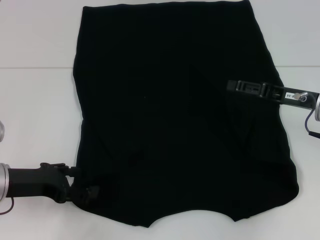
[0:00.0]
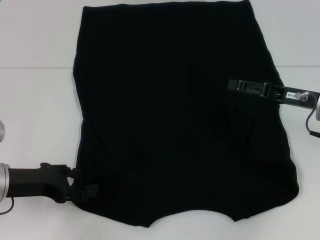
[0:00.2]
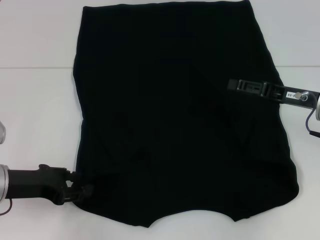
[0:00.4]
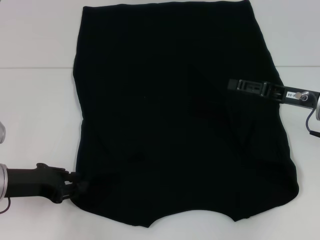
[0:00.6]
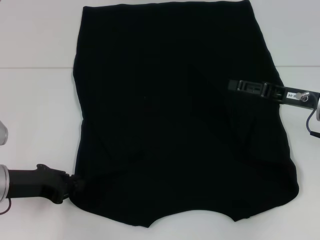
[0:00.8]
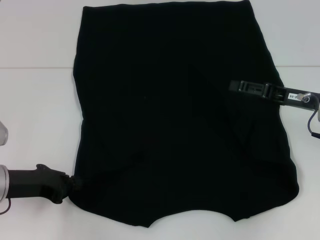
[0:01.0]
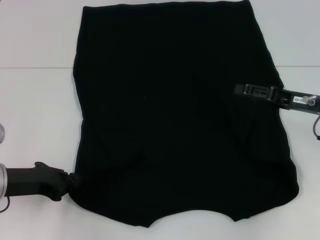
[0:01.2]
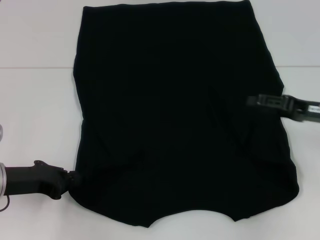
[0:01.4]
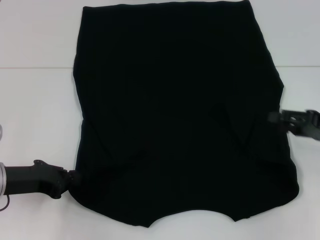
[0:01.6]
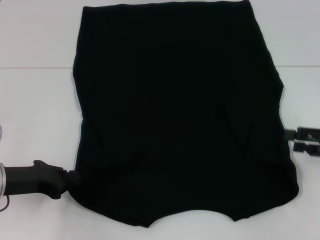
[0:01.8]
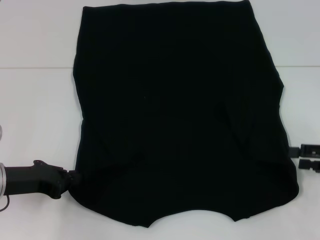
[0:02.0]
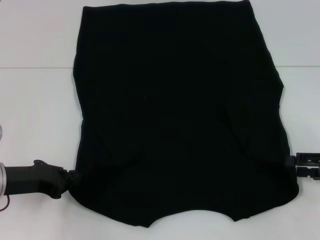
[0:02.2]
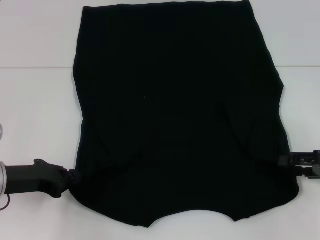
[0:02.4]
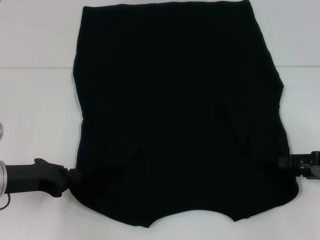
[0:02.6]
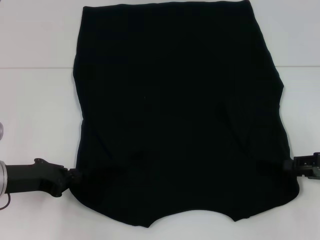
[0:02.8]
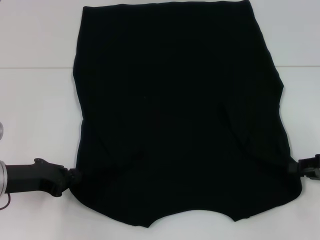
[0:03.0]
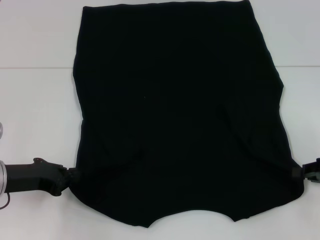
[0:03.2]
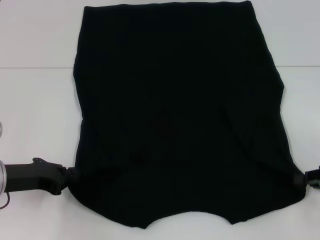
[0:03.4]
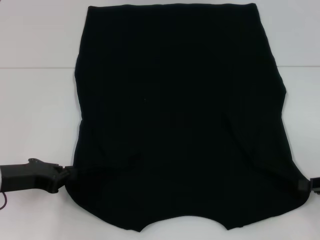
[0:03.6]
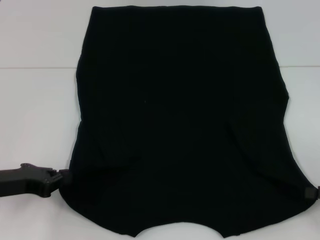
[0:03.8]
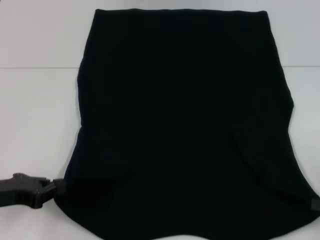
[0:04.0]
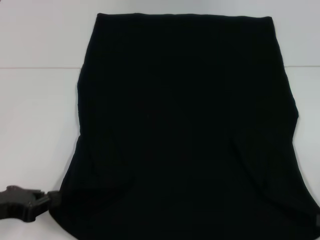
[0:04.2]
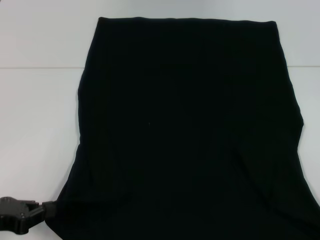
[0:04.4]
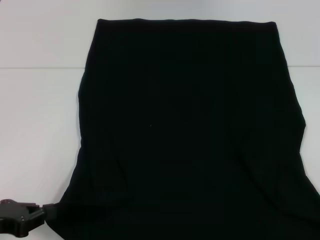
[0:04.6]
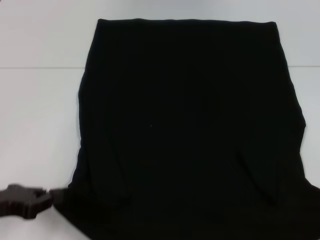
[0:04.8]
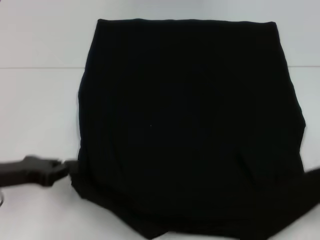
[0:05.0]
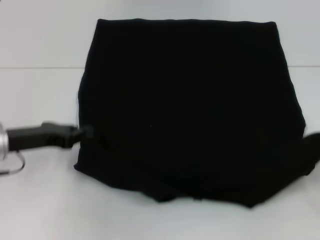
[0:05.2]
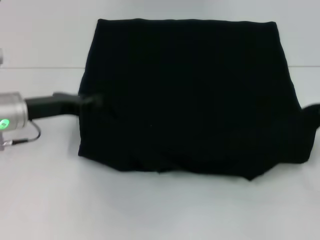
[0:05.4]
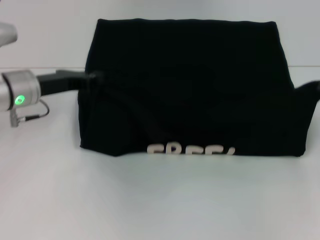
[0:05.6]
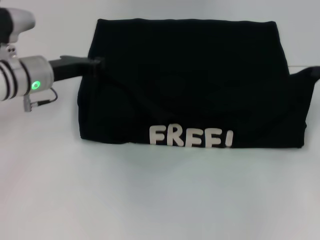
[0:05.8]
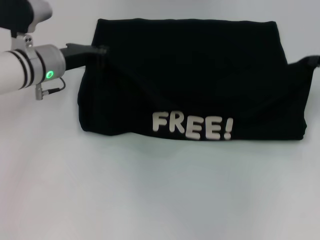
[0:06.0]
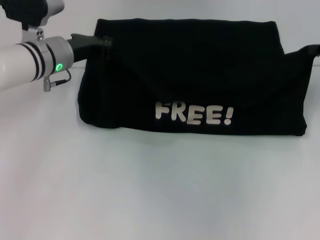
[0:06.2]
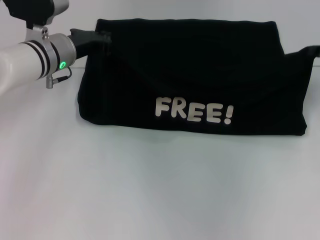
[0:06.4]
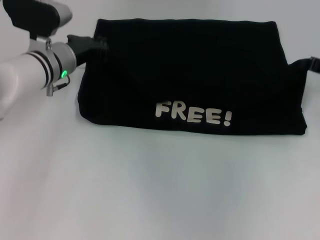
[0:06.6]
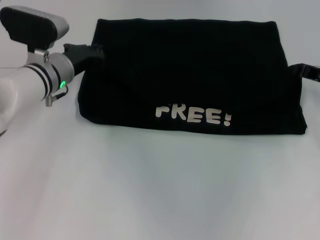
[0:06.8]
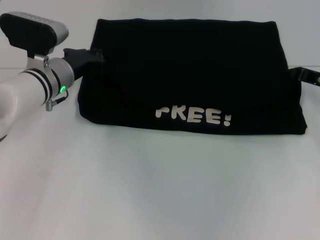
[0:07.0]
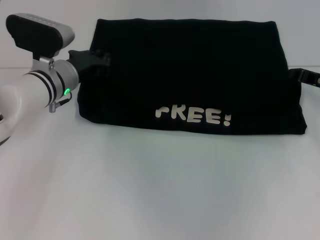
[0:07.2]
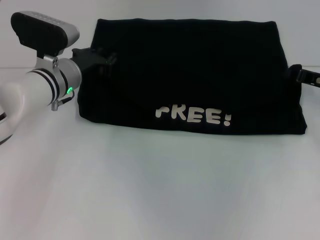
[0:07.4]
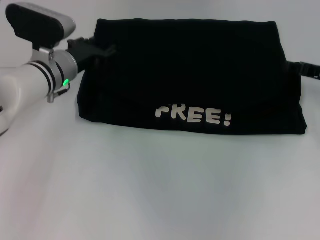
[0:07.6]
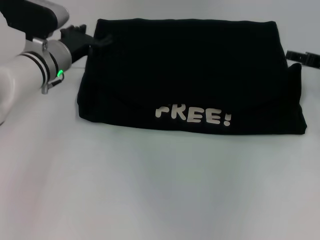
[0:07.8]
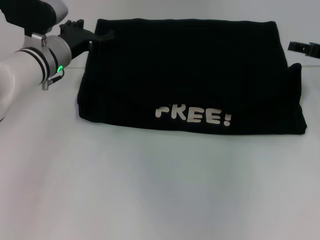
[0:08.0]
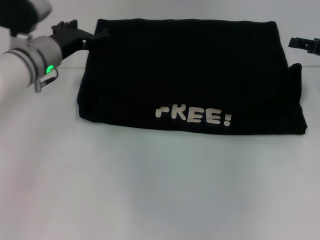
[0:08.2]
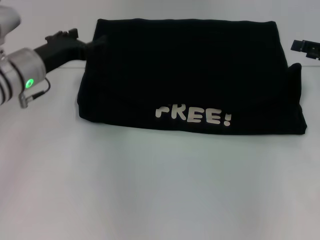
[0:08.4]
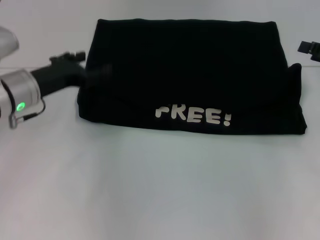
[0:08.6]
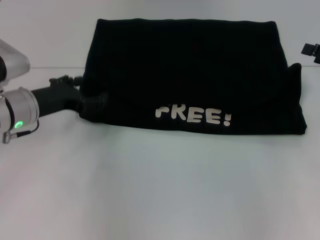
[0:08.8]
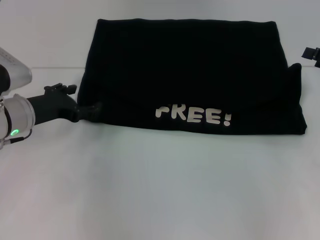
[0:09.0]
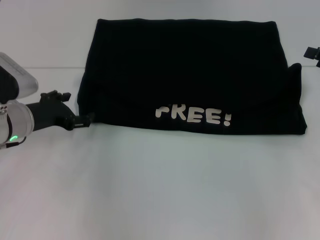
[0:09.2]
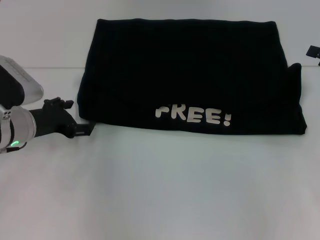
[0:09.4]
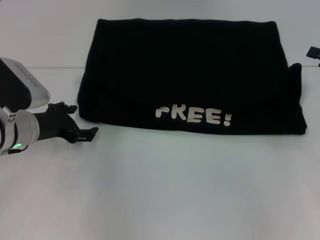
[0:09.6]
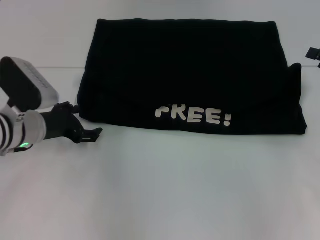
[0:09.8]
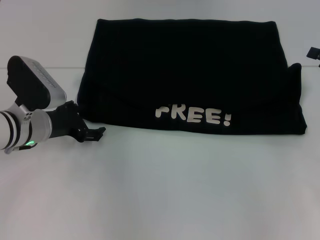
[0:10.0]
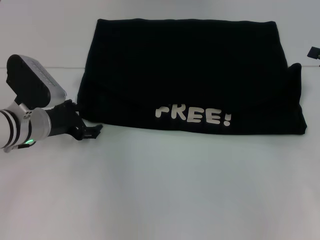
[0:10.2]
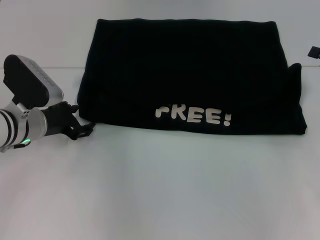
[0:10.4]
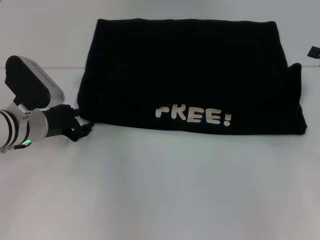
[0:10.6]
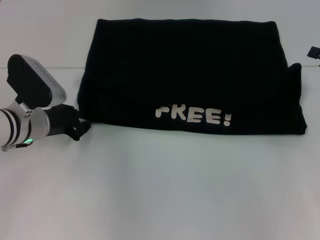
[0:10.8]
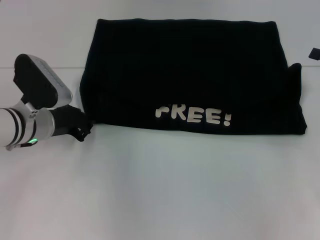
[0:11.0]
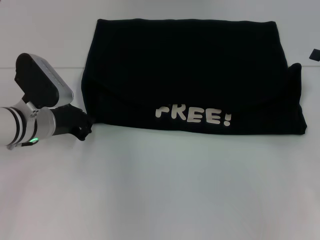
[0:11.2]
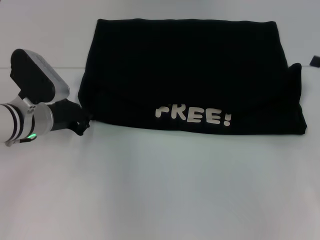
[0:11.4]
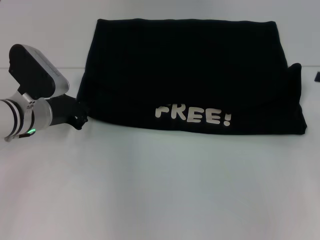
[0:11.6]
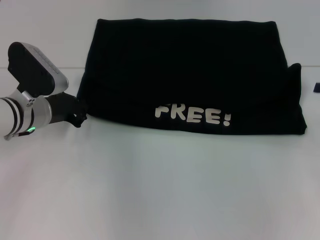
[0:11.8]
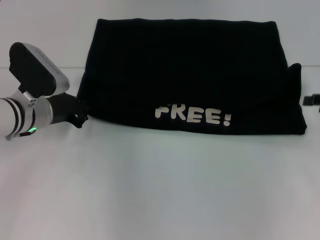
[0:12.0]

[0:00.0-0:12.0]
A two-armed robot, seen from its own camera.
Step, 0:02.2 to 0:03.2: Grab the bottom right corner with your right hand.
Step, 0:03.4 to 0:07.2: Fold the clothes with your left hand.
Step, 0:03.4 to 0:07.2: Fold the clothes with your right hand.
0:00.0 to 0:01.6: The right gripper heads to the right, covering roughly 5 cm. Meanwhile the left gripper closes up.
0:01.6 to 0:03.0: The right gripper shifts by approximately 5 cm.
0:03.0 to 0:04.4: The right gripper is displaced backward by approximately 10 cm, and closes. The left gripper goes some 5 cm backward.
0:04.4 to 0:06.0: The right gripper shifts some 20 cm forward. Meanwhile the left gripper heads forward and to the right, covering about 25 cm.
0:06.0 to 0:07.6: The left gripper opens.
0:07.6 to 0:09.0: The left gripper goes roughly 10 cm backward and to the left, and opens up. Meanwhile the right gripper shifts by some 10 cm, and opens up.
0:09.0 to 0:10.4: The grippers stay close to where they were, moving slightly.
0:10.4 to 0:12.0: The left gripper closes up.

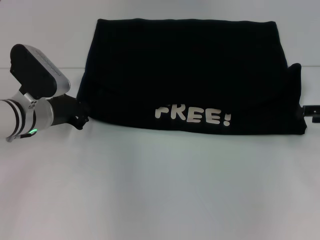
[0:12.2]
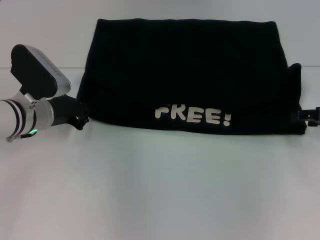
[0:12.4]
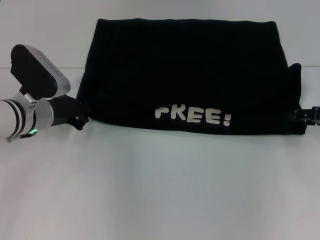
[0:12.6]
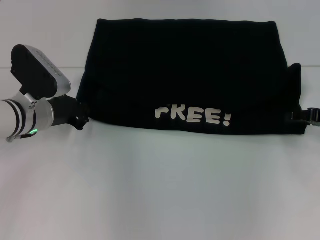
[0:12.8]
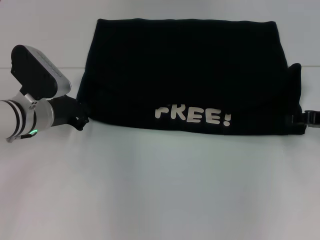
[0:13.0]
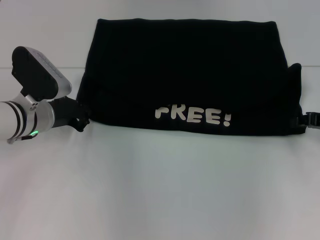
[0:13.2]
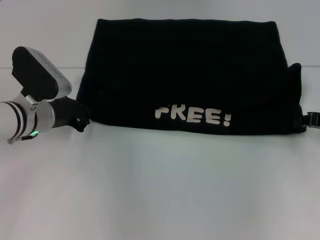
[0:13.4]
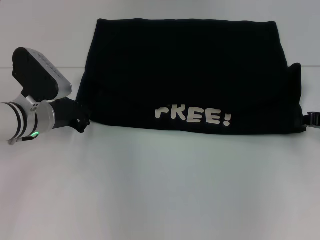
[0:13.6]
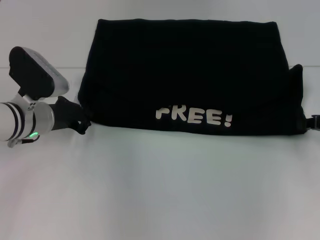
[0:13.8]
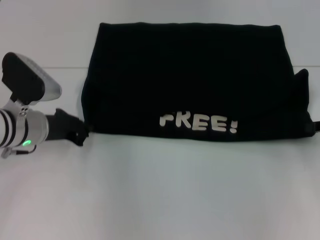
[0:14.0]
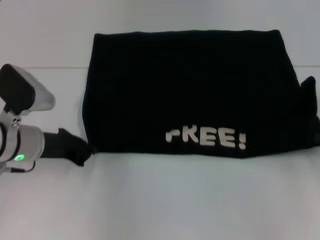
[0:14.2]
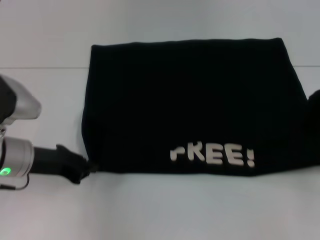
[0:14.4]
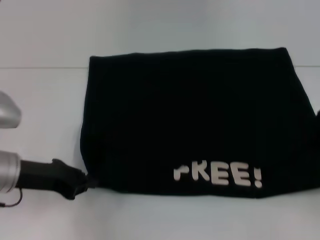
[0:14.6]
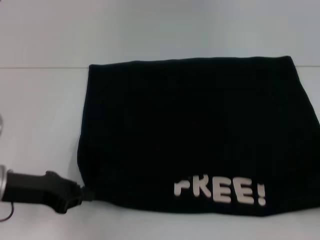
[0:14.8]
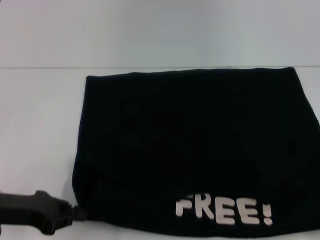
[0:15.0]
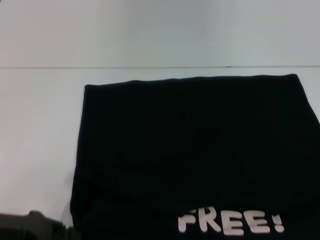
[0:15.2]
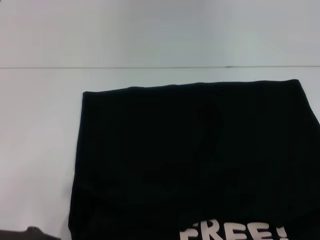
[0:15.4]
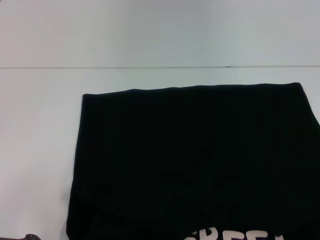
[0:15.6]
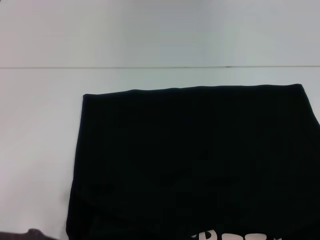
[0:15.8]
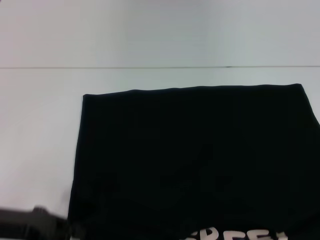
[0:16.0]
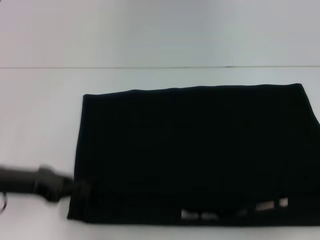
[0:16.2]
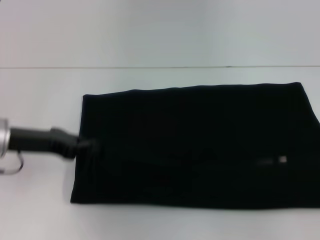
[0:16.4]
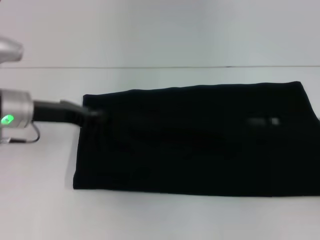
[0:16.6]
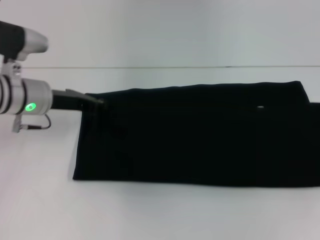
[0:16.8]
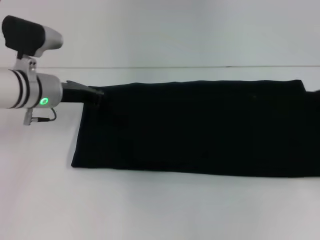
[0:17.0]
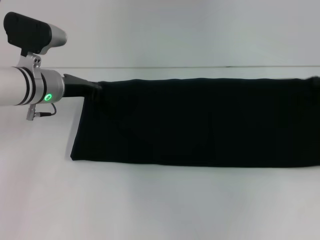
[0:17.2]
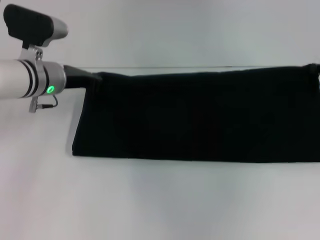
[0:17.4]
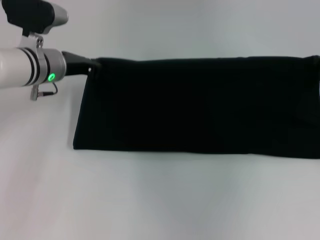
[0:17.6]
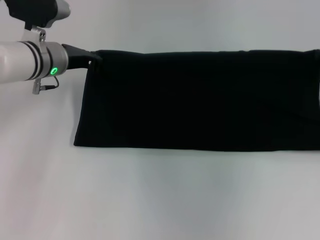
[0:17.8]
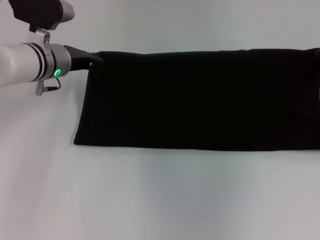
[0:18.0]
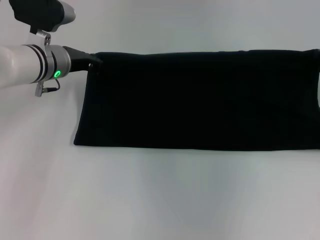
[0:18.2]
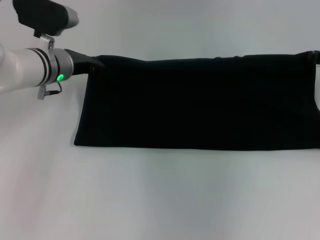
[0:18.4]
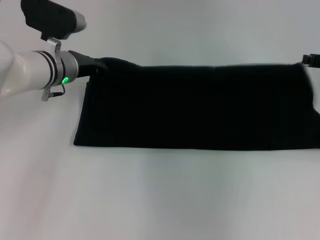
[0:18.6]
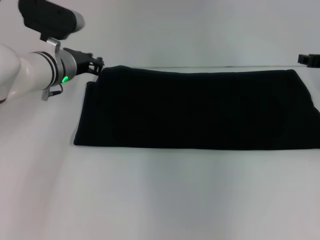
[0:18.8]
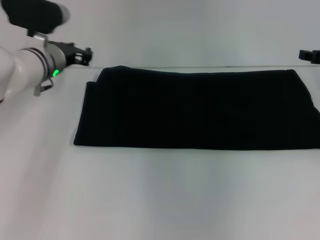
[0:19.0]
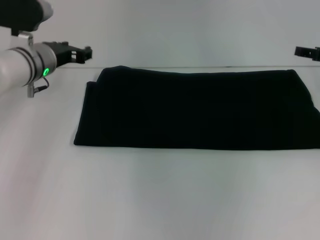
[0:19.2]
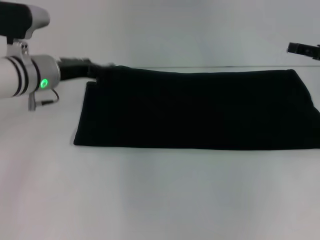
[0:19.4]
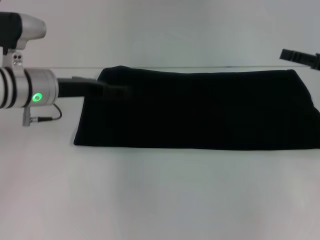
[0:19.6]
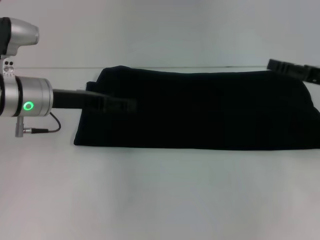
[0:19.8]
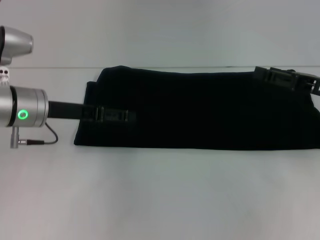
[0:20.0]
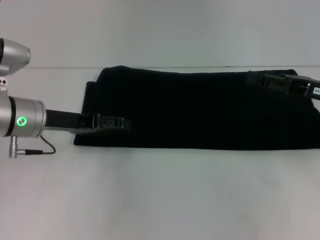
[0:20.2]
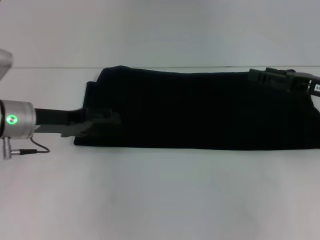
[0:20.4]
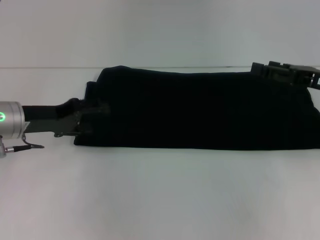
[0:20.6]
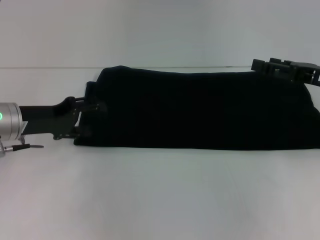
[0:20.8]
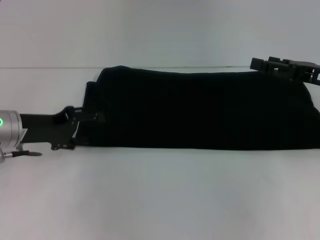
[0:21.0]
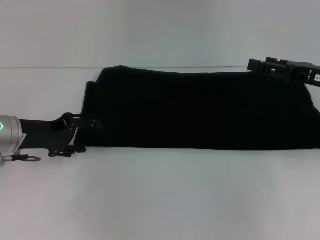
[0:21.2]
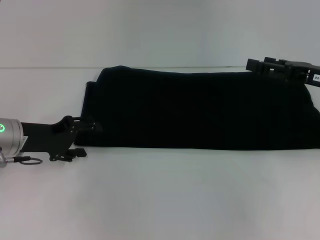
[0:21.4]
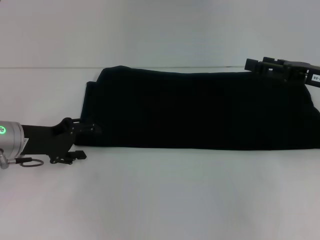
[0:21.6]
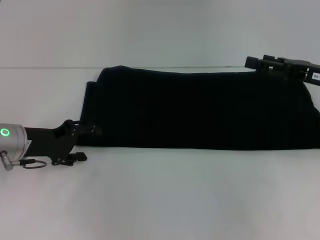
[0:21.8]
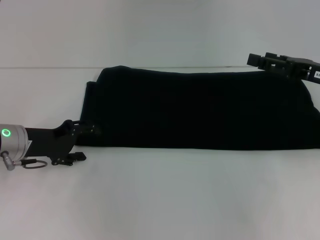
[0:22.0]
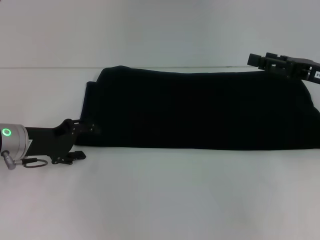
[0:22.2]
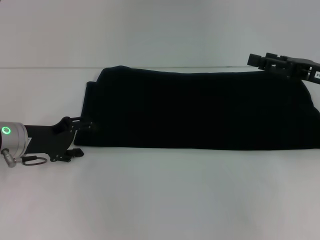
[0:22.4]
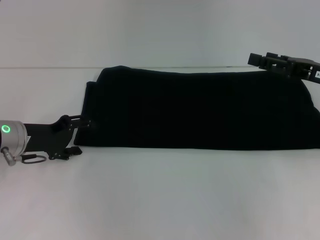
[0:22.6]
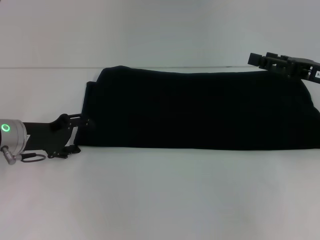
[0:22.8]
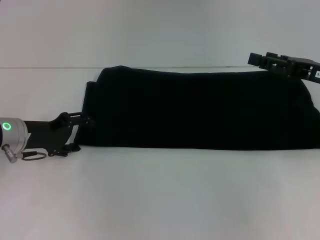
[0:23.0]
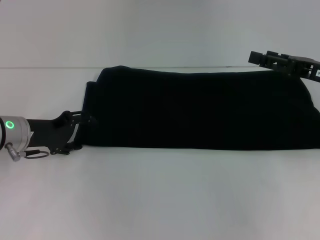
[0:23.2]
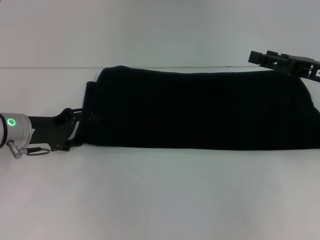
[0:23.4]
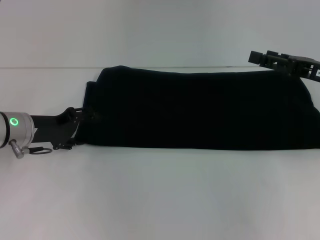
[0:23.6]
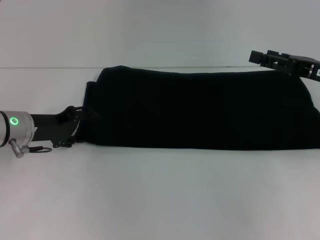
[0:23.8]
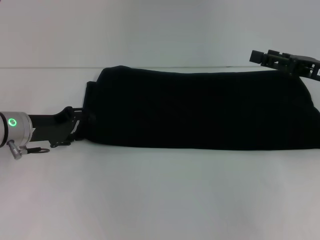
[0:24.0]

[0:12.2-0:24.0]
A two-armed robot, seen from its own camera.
Step, 0:12.2 to 0:15.8: Pull the clothes with your left hand.
Step, 0:12.2 to 0:15.8: Pull the clothes with your right hand.
Step, 0:16.0 to 0:19.4: Fold the clothes with your right hand.
0:13.6 to 0:15.2: The right gripper is displaced backward and to the right by about 20 cm, while the left gripper travels backward and to the left by about 15 cm.
0:15.2 to 0:16.6: The two grippers go roughly 15 cm forward.
0:16.6 to 0:18.2: The left gripper shifts roughly 10 cm forward and to the right. The right gripper is displaced forward and to the left by roughly 15 cm.
0:18.2 to 0:19.6: The two grippers go roughly 5 cm backward. The left gripper opens up, while the right gripper opens.
0:19.6 to 0:21.0: The left gripper moves to the left, some 5 cm.
0:21.0 to 0:24.0: There are only small adjustments of the grippers.
